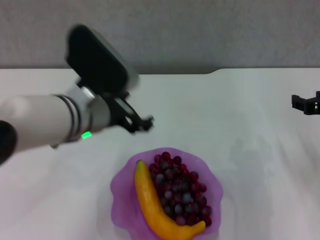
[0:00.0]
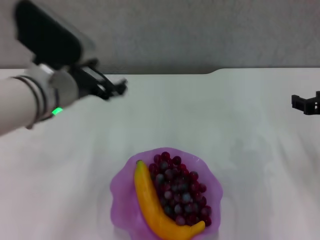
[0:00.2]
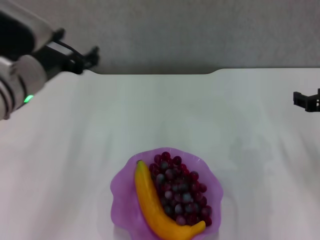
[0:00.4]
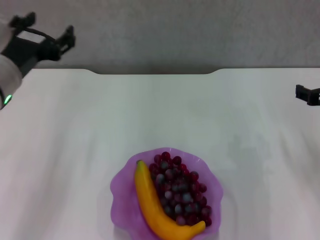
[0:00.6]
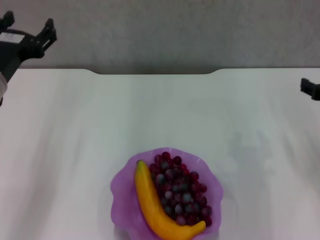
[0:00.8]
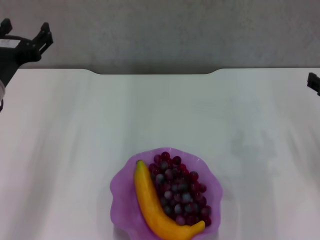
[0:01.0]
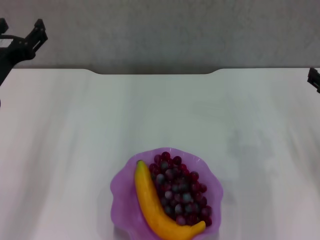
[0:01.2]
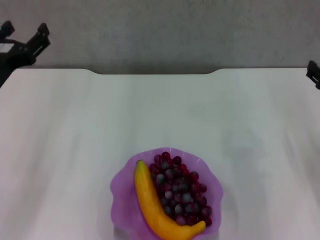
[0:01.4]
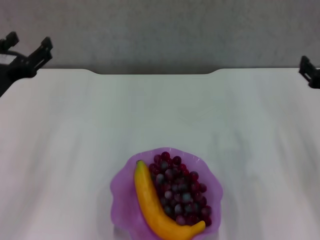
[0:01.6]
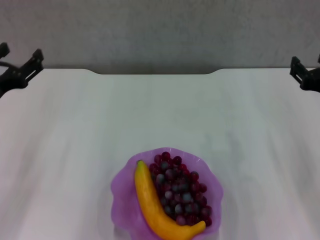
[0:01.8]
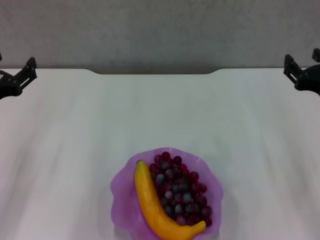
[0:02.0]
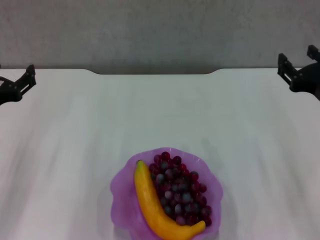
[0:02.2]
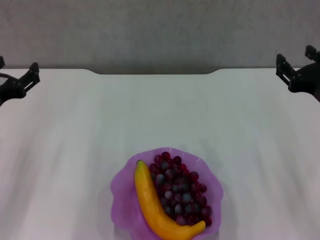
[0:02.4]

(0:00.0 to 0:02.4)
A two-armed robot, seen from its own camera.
0:00.0 - 0:01.2: The left gripper shifts some 15 cm to the left.
0:01.2 - 0:02.4: The left gripper shifts by roughly 5 cm. Meanwhile the right gripper travels to the left by roughly 5 cm.
